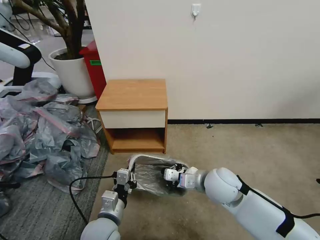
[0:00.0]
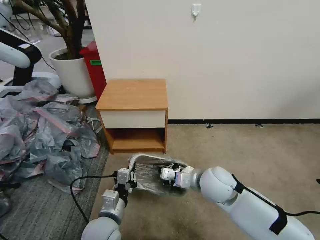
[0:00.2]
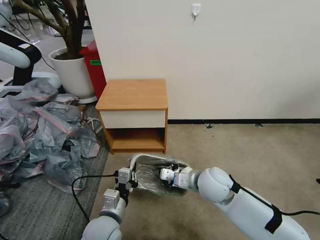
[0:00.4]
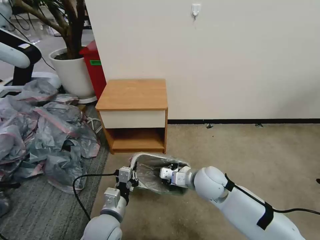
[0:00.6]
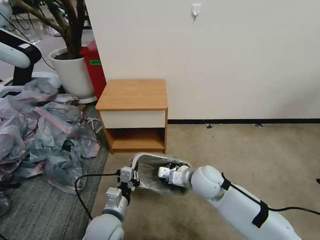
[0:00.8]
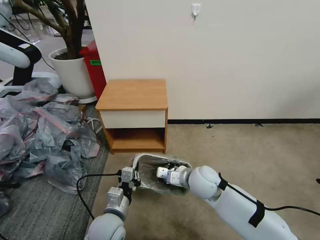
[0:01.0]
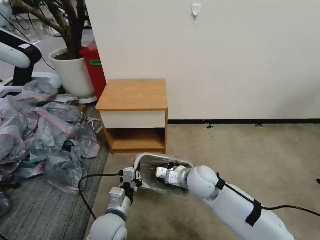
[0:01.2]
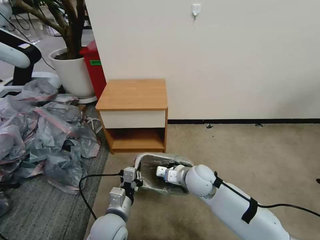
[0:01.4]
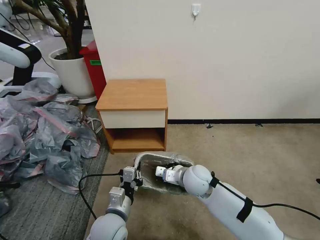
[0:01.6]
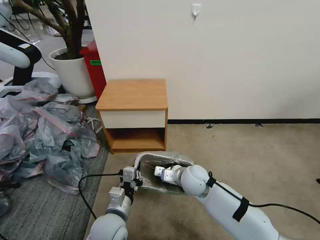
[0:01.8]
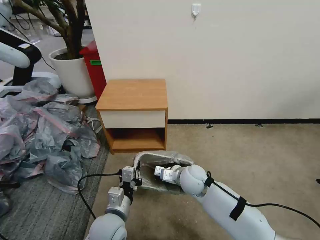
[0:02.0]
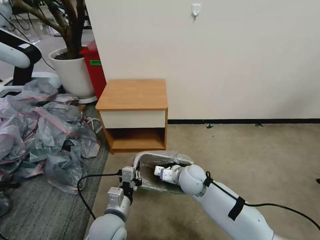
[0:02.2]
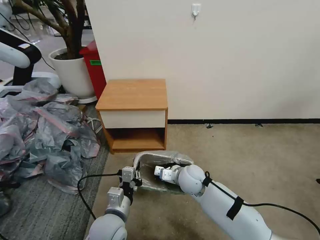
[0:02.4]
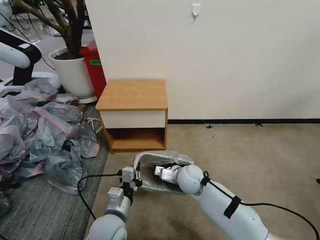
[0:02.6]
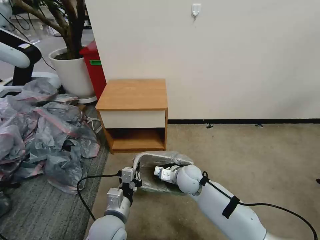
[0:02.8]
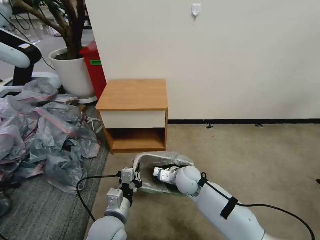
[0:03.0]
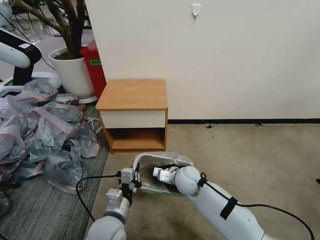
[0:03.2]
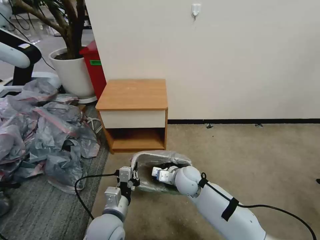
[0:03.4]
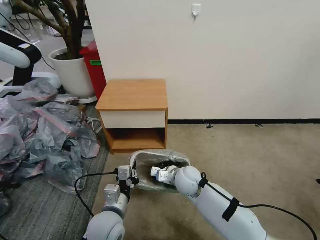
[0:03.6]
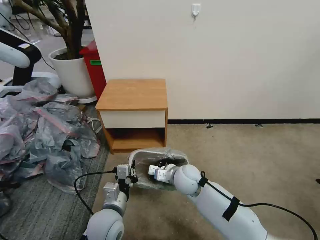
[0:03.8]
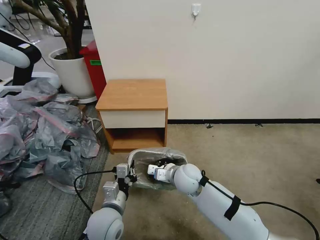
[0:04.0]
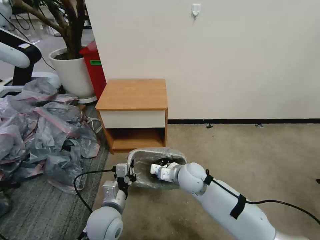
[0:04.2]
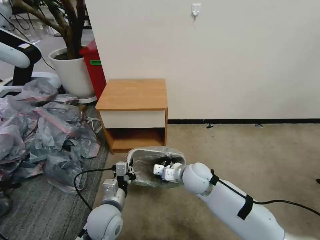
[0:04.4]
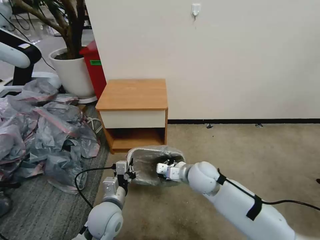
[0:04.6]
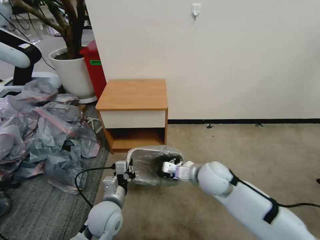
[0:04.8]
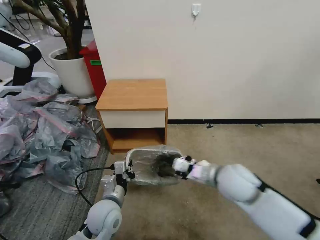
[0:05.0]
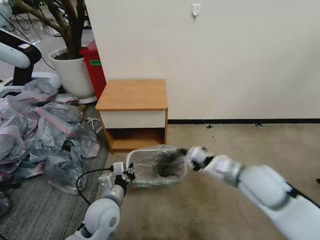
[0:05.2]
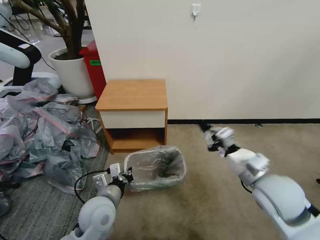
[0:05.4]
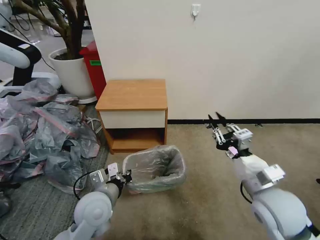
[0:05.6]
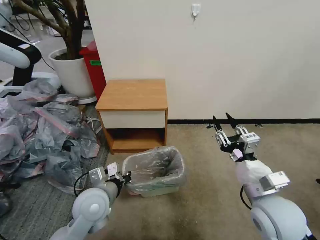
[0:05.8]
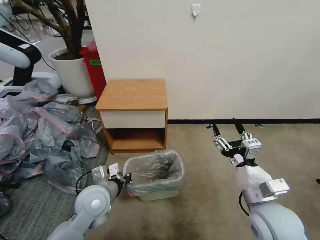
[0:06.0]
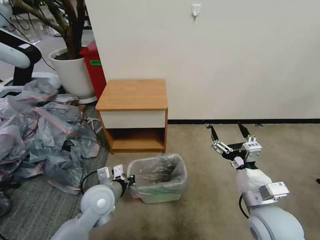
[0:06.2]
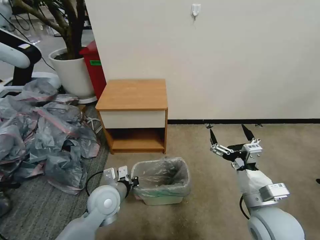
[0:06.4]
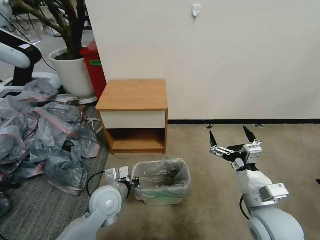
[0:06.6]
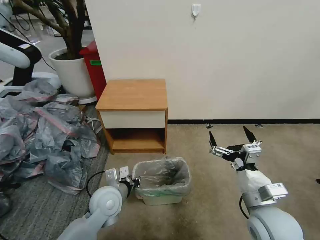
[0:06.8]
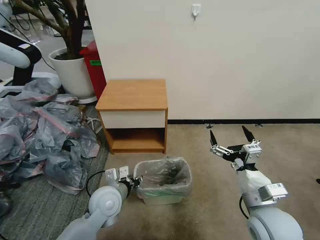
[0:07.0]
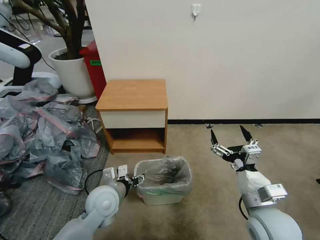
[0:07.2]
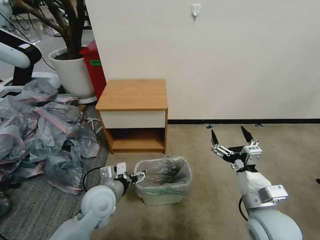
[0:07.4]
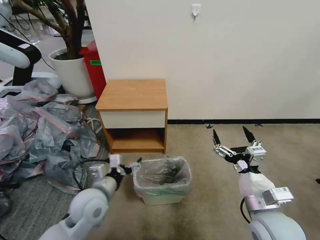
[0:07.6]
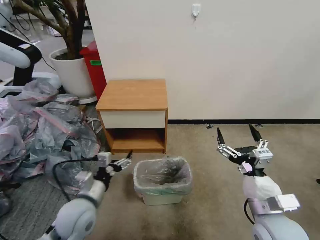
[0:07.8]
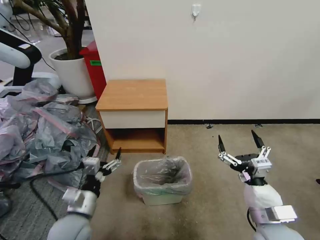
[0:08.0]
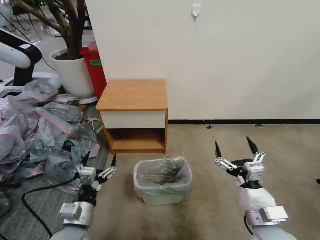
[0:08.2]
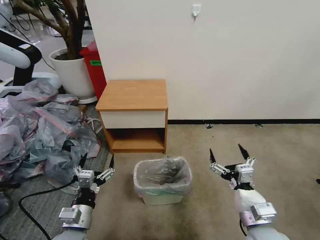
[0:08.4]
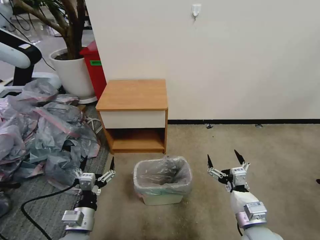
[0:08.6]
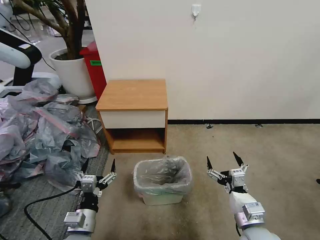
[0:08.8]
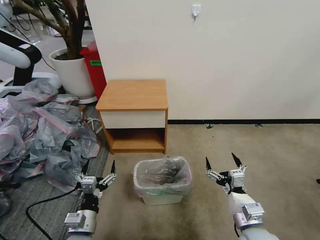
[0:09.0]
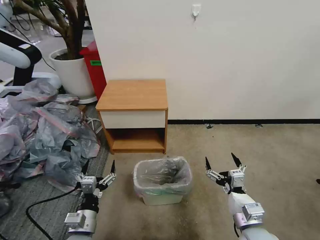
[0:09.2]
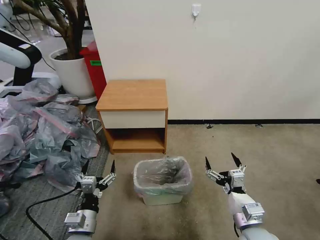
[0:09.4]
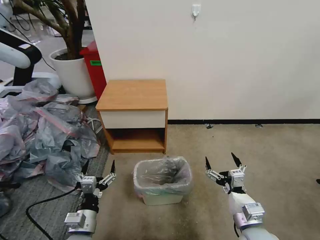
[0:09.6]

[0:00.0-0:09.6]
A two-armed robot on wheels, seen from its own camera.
Task of the whole recording: Pick up the garbage bag from the table and place it over the trash can.
0.0 to 1.6 s: The right gripper goes approximately 10 cm downward and to the left.
1.6 to 3.2 s: The right gripper ends up roughly 5 cm from where it was.
3.2 to 4.8 s: The right gripper moves upward and to the right, about 10 cm.
4.8 to 6.4 s: The left gripper shifts by approximately 5 cm. Meanwhile the right gripper heads backward and to the right, covering roughly 20 cm, and opens up.
6.4 to 8.0 s: The left gripper travels backward and to the left by approximately 10 cm, and opens.
8.0 to 9.6 s: The two grippers go approximately 5 cm downward.

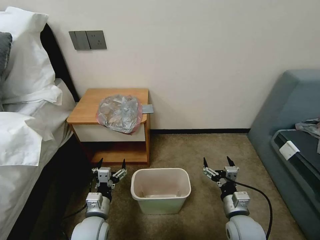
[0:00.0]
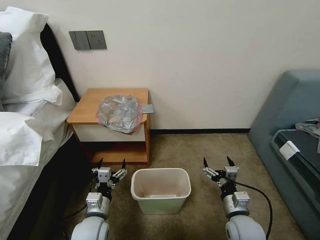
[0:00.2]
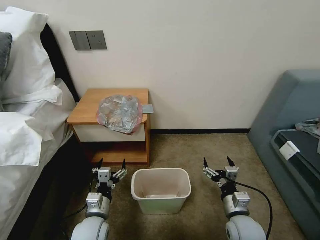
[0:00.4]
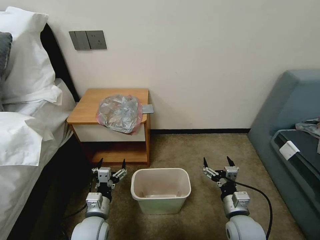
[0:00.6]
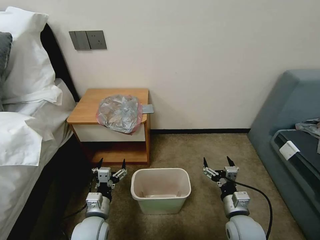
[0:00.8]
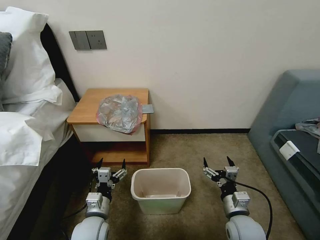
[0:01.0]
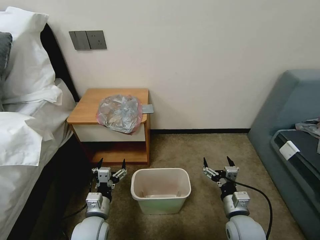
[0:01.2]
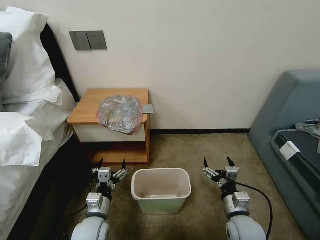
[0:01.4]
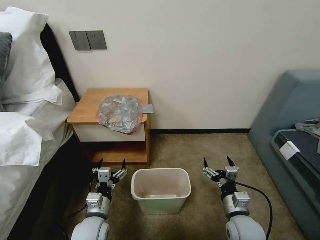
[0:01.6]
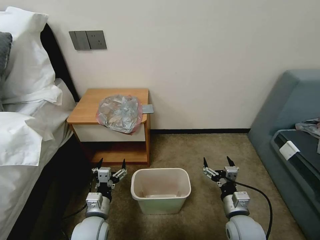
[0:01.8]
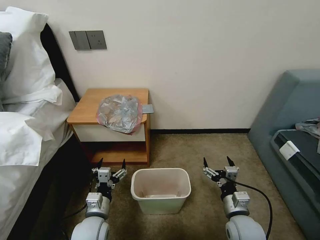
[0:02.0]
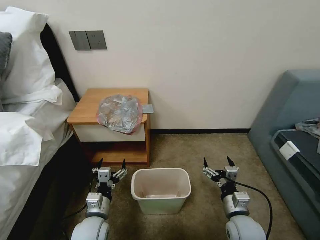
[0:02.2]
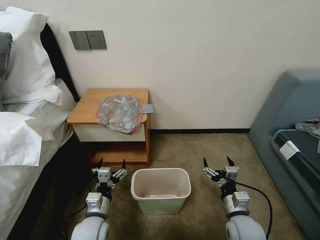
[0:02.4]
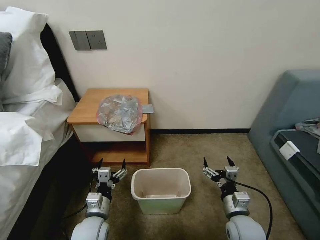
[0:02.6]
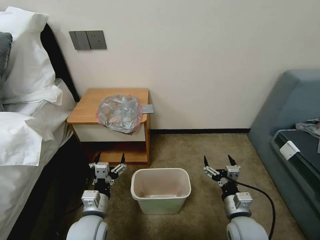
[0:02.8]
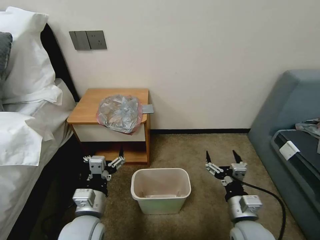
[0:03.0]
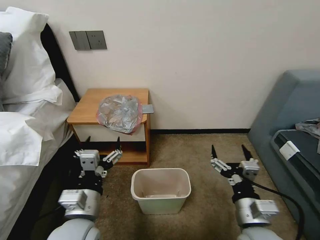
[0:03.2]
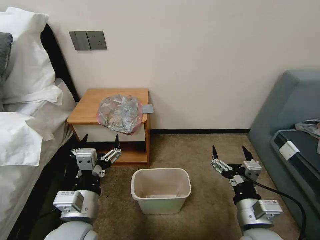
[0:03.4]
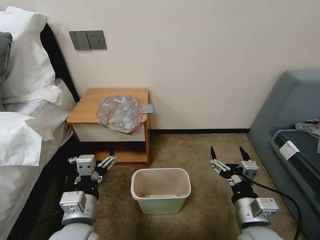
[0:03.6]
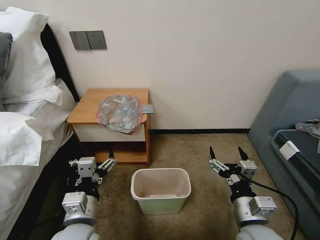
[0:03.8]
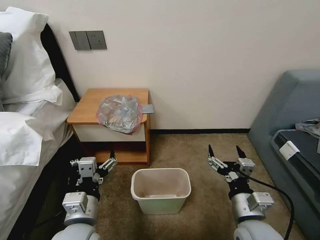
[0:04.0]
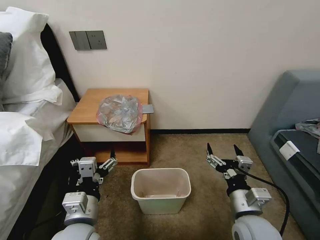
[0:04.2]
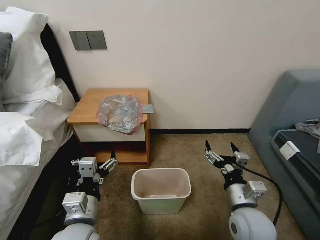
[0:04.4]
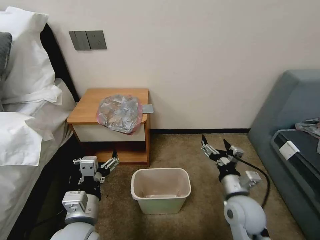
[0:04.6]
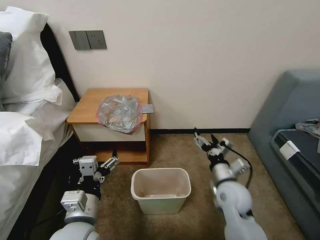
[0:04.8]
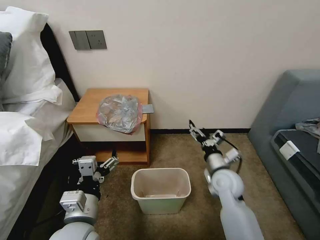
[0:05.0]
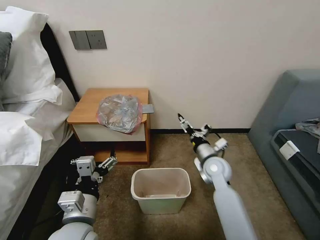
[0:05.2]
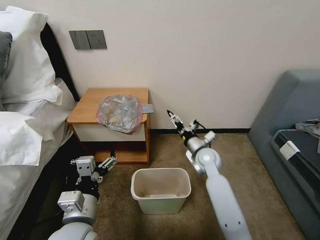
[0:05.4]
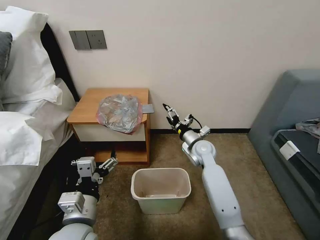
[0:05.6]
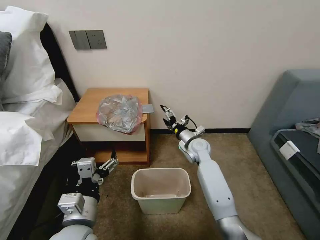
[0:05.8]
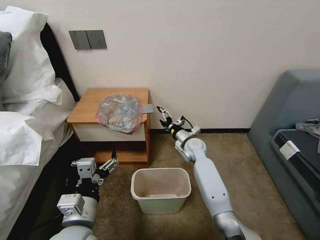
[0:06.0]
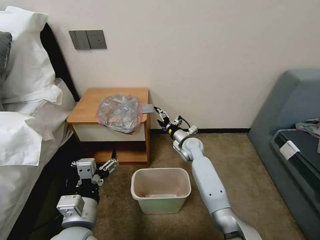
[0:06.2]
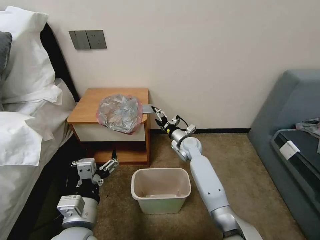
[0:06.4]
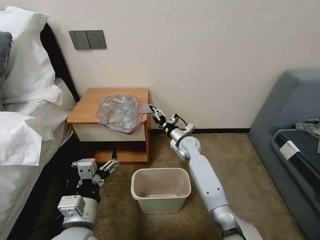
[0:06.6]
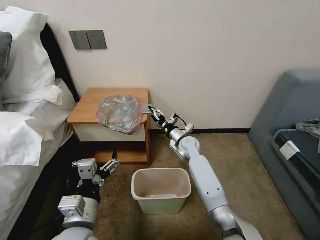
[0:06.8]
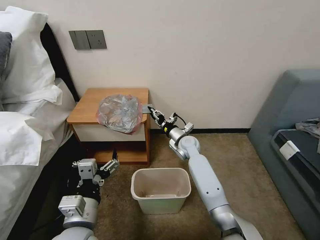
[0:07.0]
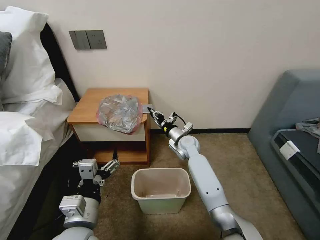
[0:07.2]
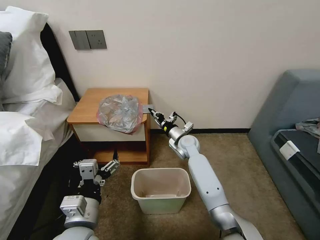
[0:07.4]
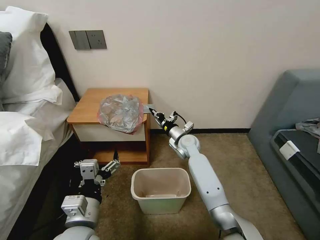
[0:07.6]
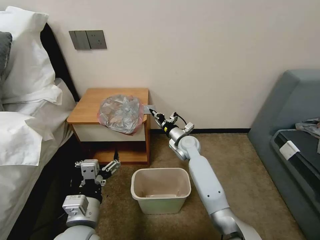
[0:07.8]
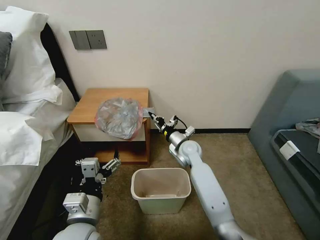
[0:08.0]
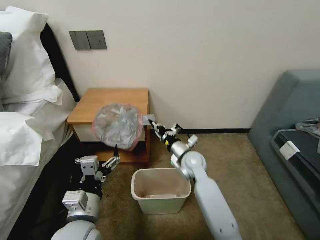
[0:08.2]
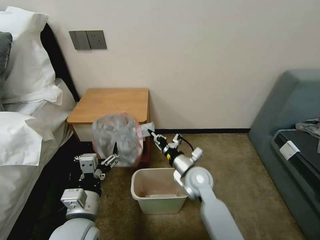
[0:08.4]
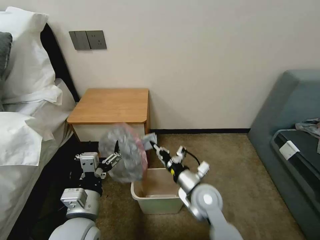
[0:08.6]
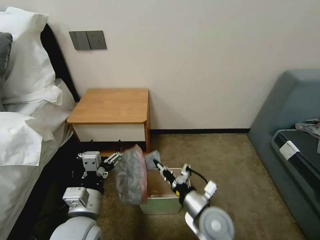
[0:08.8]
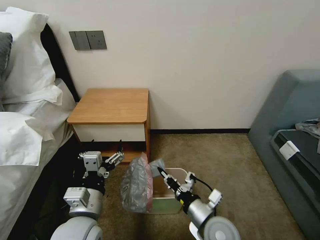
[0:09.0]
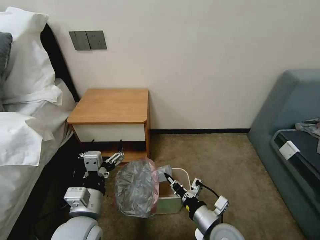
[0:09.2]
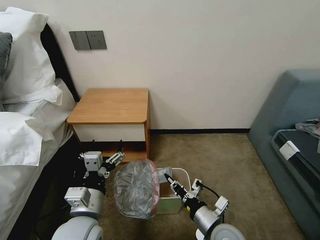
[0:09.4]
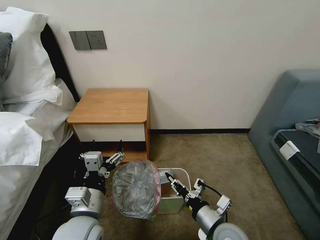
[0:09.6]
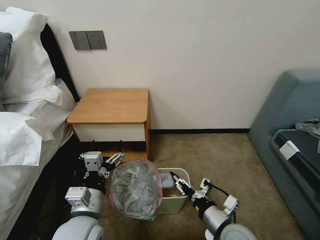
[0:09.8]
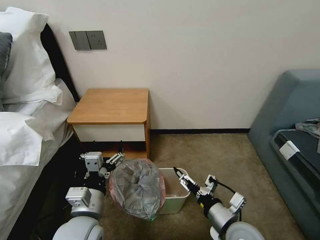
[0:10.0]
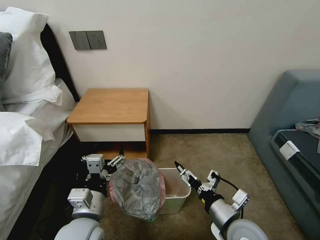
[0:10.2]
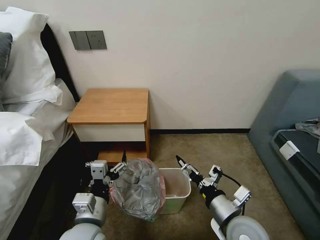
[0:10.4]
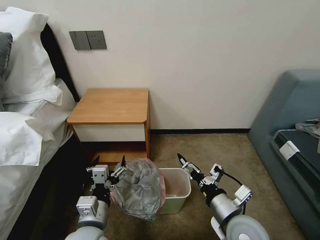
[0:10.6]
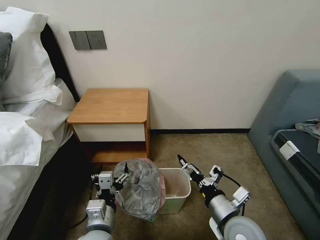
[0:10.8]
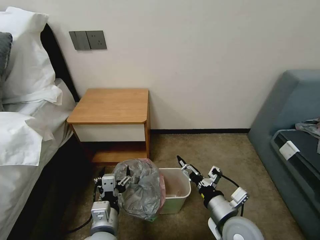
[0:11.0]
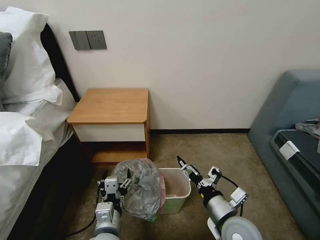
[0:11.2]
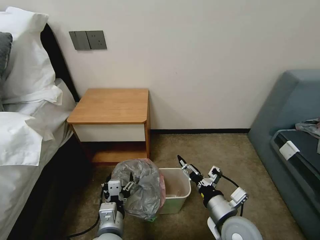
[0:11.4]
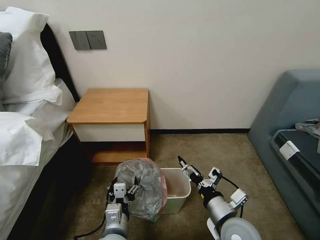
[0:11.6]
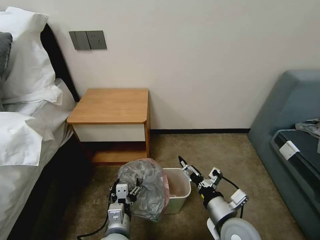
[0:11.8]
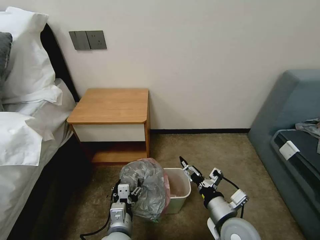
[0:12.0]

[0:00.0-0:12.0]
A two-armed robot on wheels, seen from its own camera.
Task of the whole recording: Pick up the garbage bag from the table and place it over the trash can.
1.6 to 3.0 s: The left gripper shifts some 10 cm upward. The right gripper moves upward, about 5 cm.
4.4 to 6.0 s: The right gripper is displaced forward by approximately 30 cm.
6.0 to 7.6 s: The right gripper closes.
7.6 to 9.0 s: The right gripper goes some 30 cm backward.
9.0 to 10.4 s: The right gripper shifts about 5 cm upward, and opens its fingers.
10.4 to 12.0 s: The left gripper moves downward and to the right, some 10 cm.

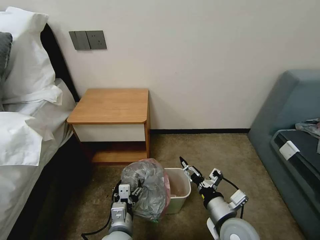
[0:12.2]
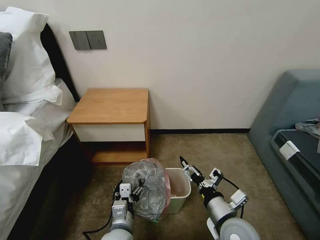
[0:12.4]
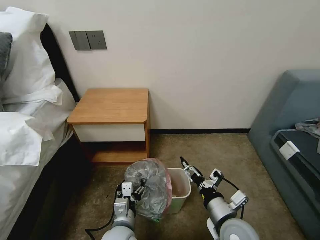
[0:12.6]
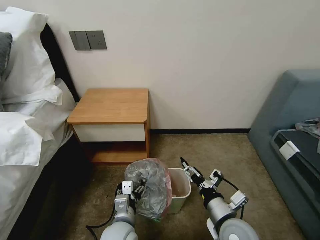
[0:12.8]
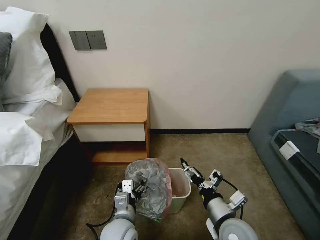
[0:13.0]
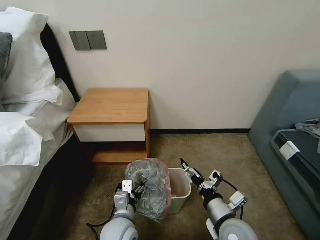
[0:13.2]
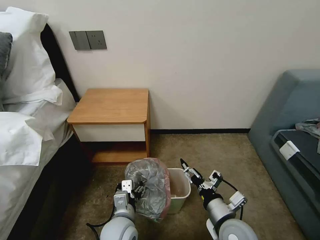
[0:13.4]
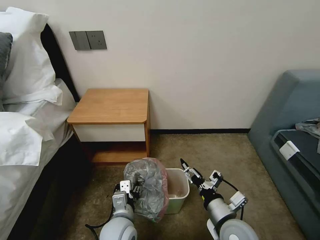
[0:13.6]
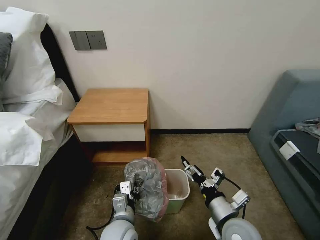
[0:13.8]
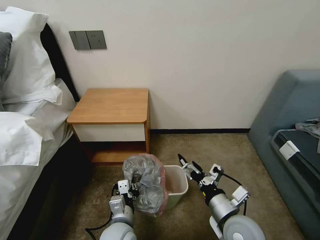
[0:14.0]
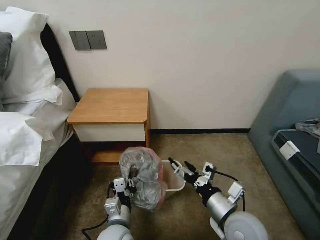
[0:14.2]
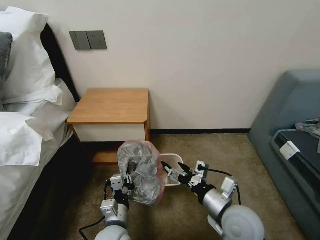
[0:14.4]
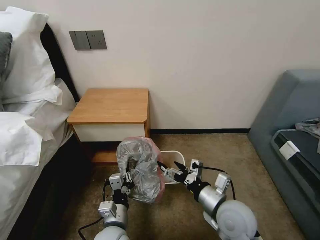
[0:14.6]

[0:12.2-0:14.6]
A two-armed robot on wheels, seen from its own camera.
Task of the whole recording: Pick up the garbage bag from the table and place it over the trash can.
12.2 to 13.4 s: The grippers move only a little.
13.4 to 14.6 s: The left gripper closes. Meanwhile the right gripper ends up about 5 cm from where it was.
